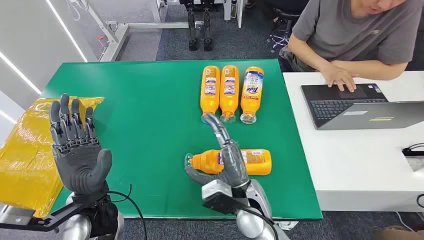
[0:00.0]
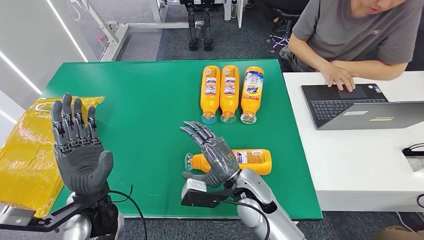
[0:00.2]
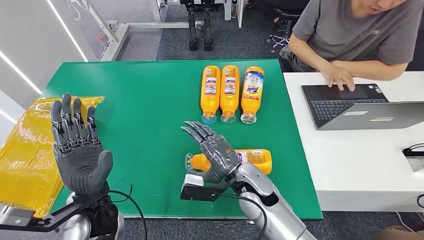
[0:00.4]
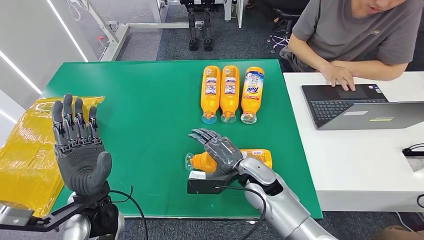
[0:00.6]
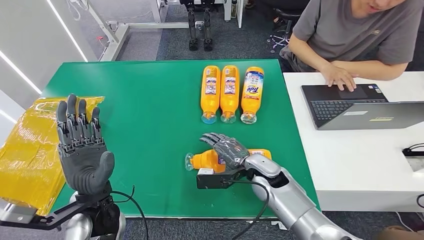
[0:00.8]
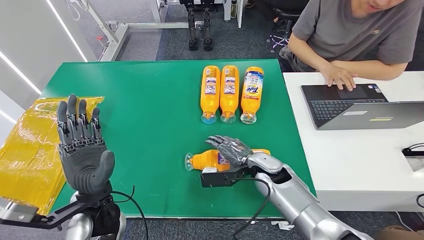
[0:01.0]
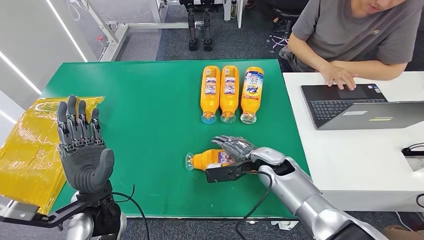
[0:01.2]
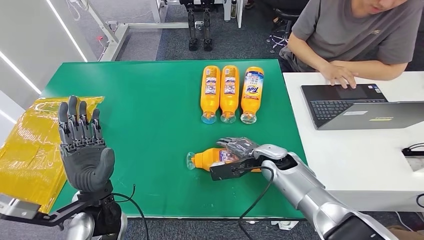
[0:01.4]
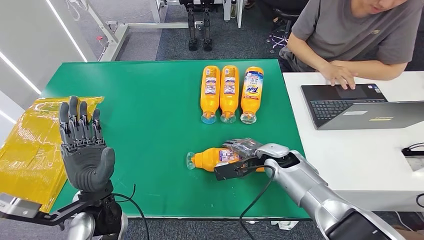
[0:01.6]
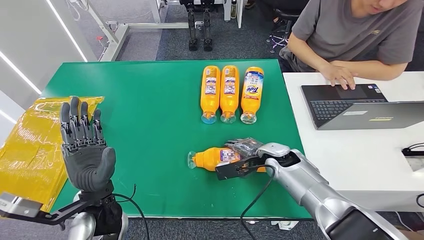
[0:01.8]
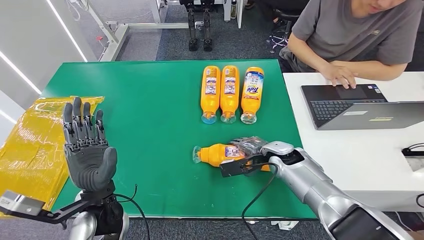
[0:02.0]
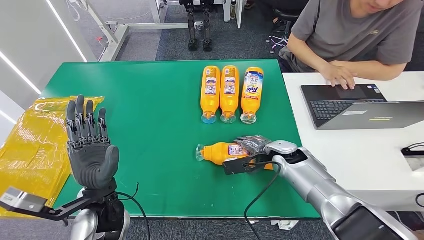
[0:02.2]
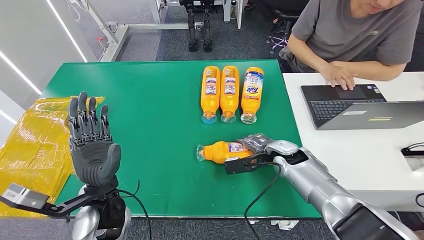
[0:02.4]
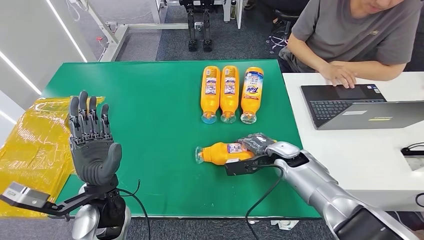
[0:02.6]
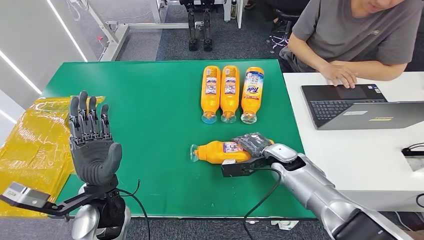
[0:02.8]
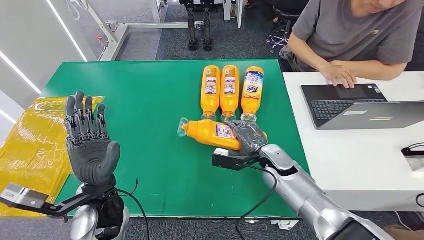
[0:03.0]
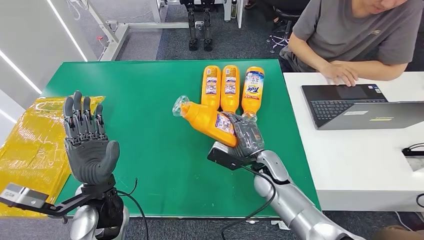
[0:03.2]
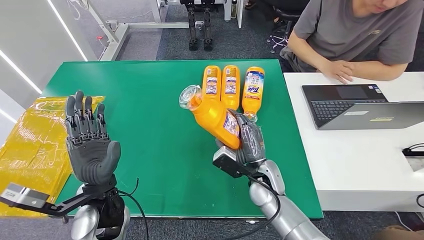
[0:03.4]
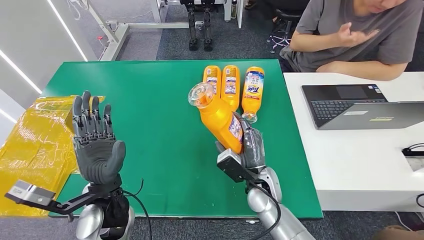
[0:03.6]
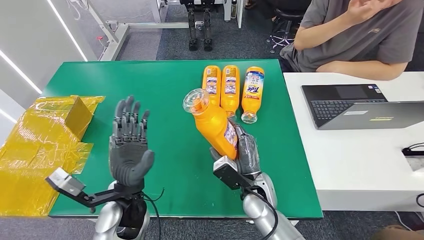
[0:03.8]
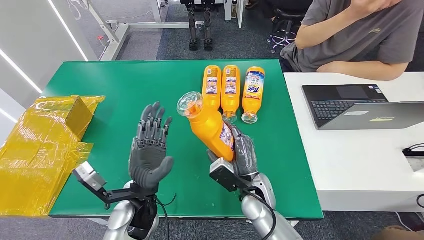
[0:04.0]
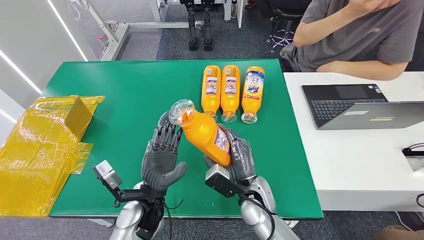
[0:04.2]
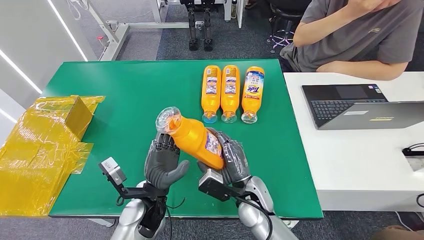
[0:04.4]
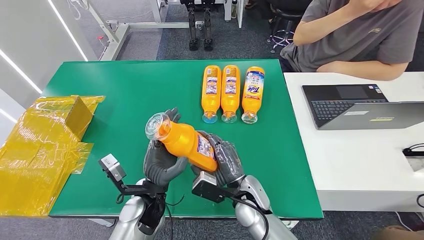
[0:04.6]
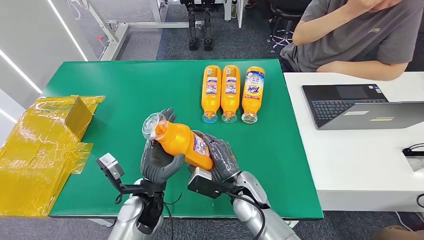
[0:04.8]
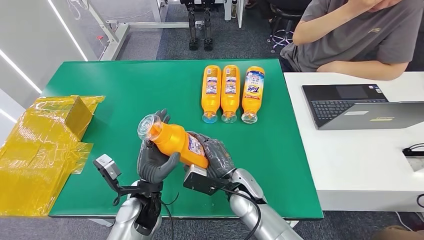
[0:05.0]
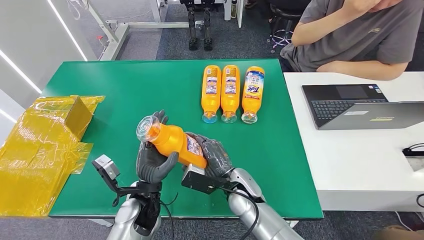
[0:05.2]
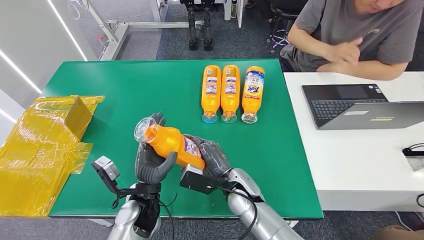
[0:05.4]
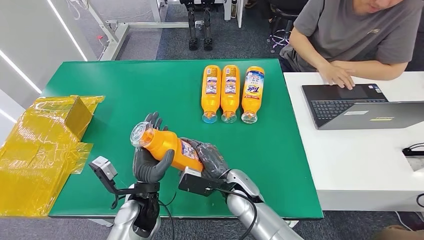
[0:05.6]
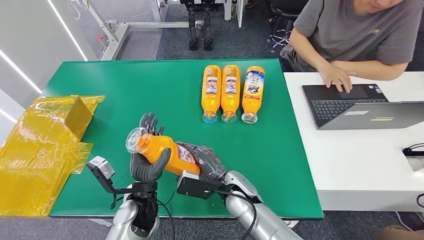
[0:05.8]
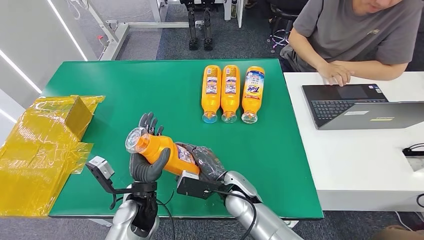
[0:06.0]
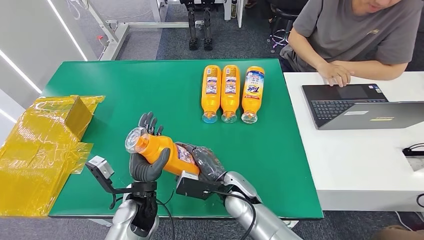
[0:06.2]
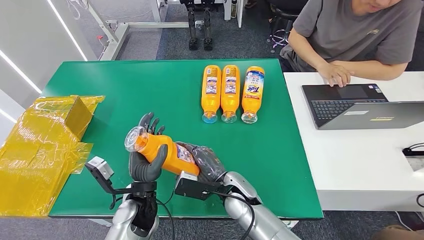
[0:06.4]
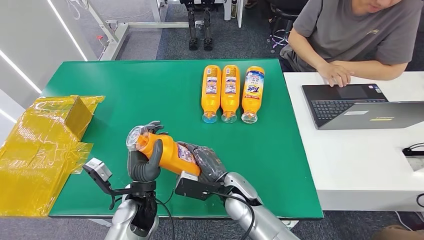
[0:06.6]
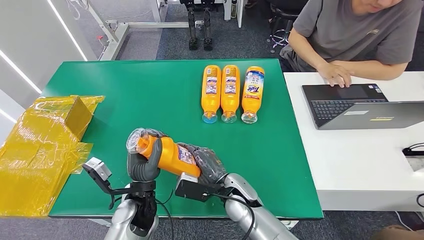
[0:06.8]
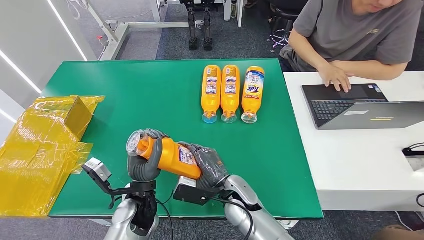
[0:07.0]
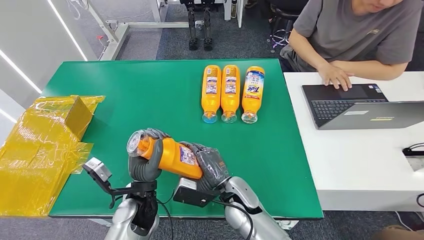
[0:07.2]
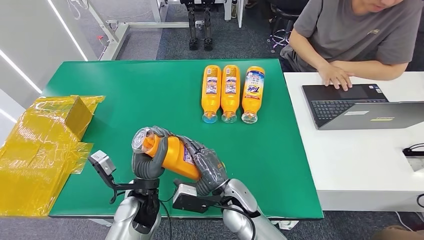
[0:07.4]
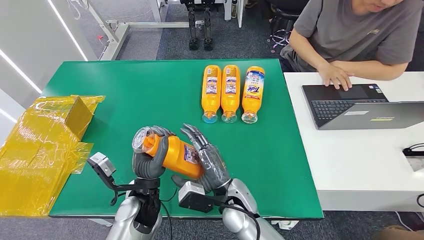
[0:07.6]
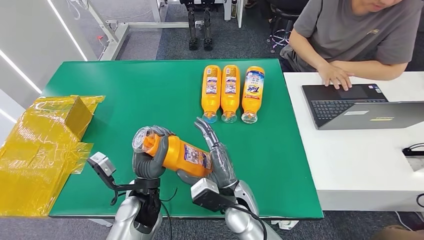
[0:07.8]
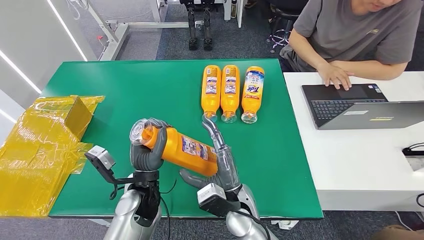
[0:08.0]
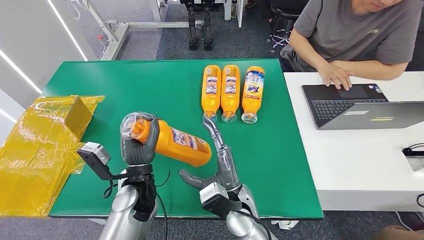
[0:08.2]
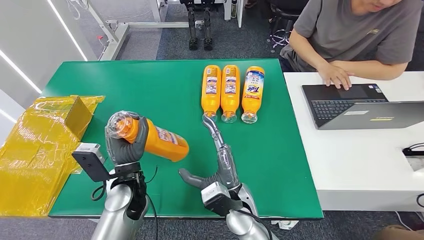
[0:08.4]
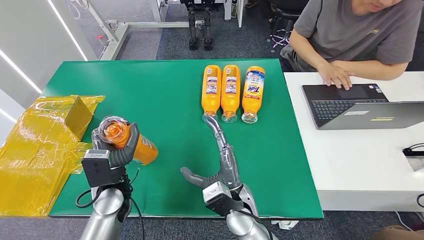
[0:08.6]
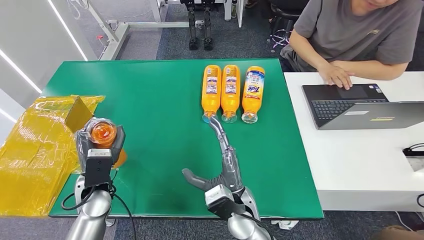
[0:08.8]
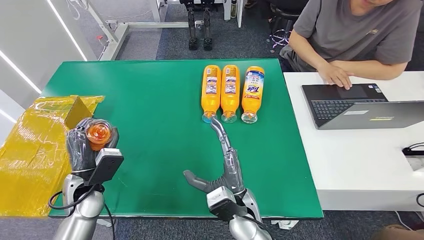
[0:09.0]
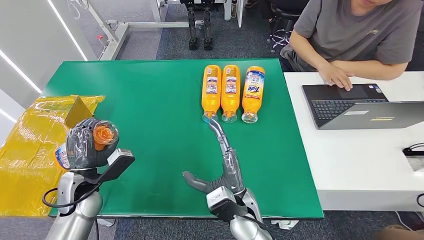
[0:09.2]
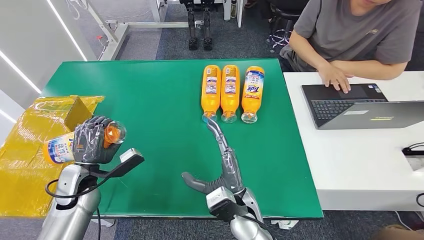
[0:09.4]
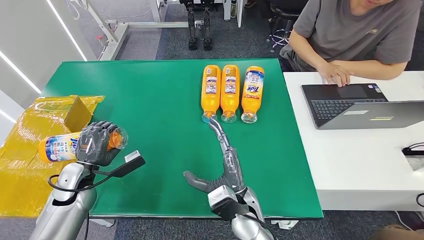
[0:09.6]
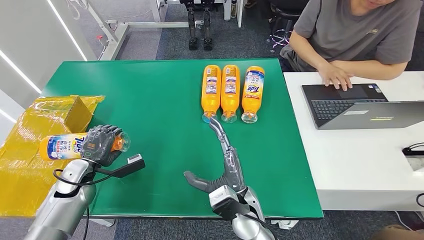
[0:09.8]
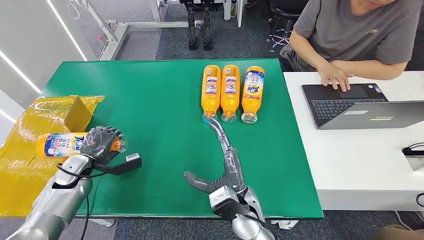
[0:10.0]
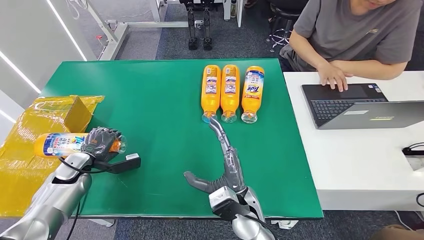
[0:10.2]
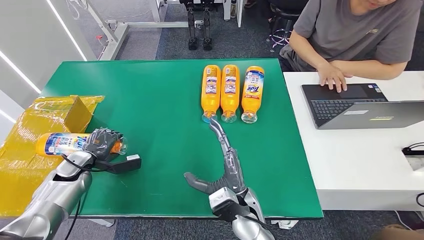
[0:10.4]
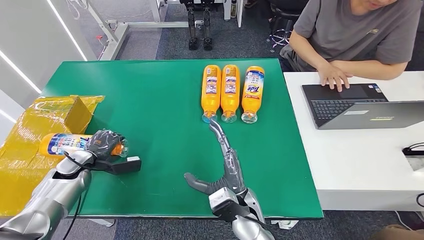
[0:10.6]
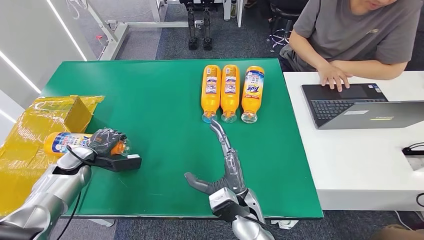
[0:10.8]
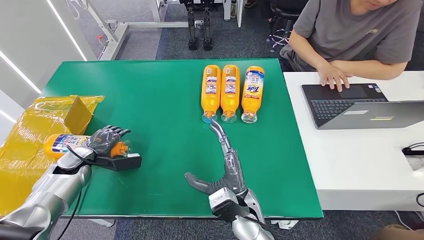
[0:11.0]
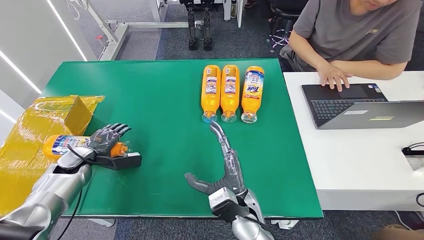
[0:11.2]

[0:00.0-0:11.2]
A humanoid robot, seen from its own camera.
Step, 0:00.0 to 0:03.6: Pick up the bottle from the table.
0:01.6 to 0:03.2: The right hand changes place by roughly 5 cm.
0:04.8 to 0:06.4: The hands make only small movements.
0:08.0 to 0:09.6: The left hand goes about 20 cm to the left.
0:09.6 to 0:11.2: The left hand travels forward and to the left by roughly 10 cm.

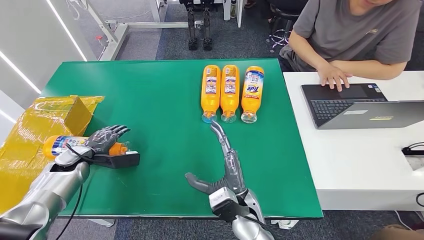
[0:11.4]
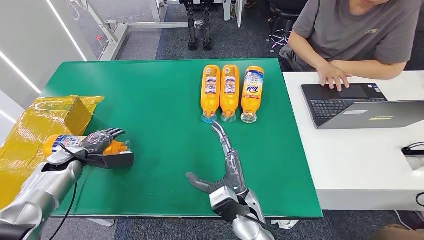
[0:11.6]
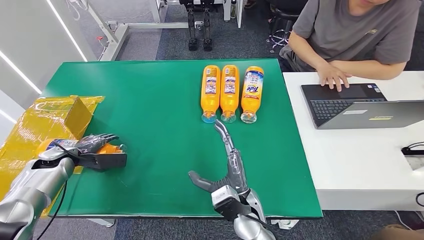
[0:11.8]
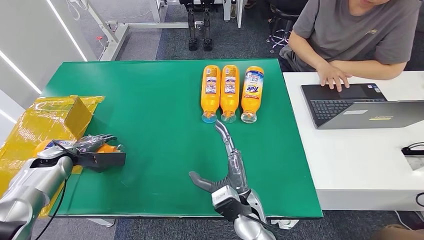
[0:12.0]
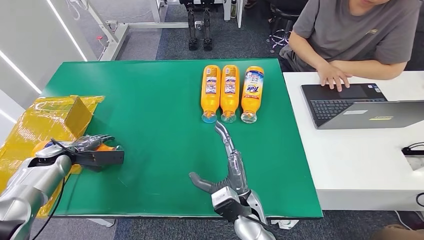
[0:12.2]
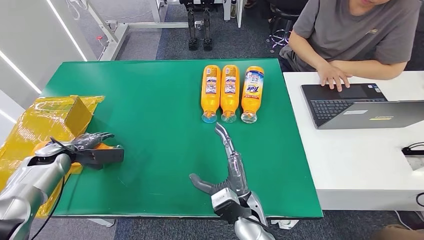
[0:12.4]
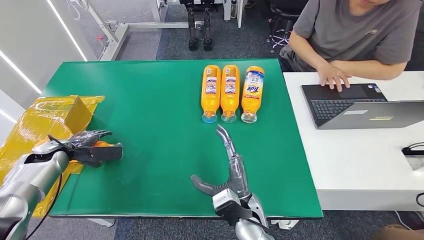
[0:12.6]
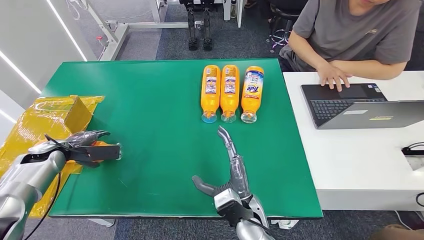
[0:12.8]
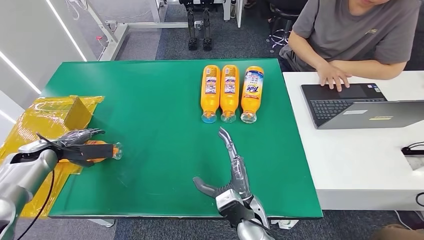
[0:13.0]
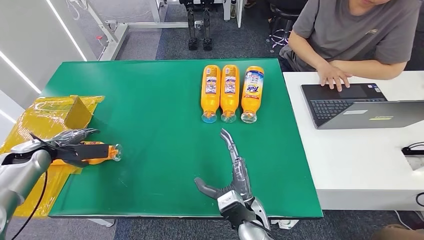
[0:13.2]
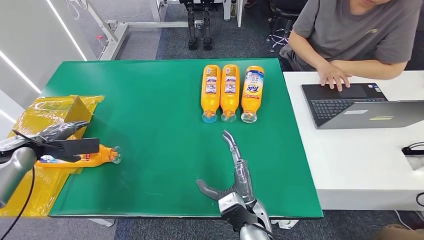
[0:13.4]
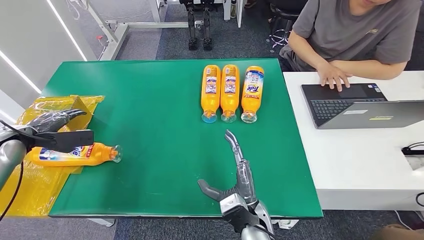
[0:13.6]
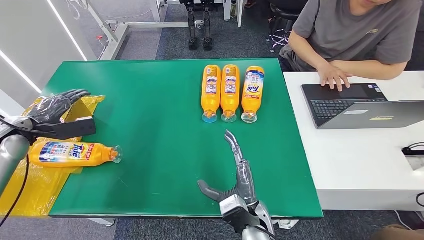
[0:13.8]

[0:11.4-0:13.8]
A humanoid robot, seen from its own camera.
Step, 0:11.4 to 0:13.8: Turn the bottle to the front side.
0:11.4 to 0:12.6: The left hand moves to the left, some 5 cm.
0:12.6 to 0:13.8: The left hand moves upward, roughly 10 cm.
